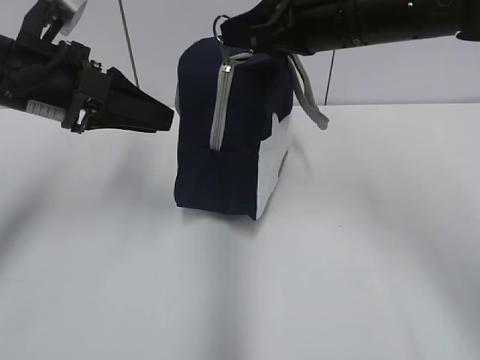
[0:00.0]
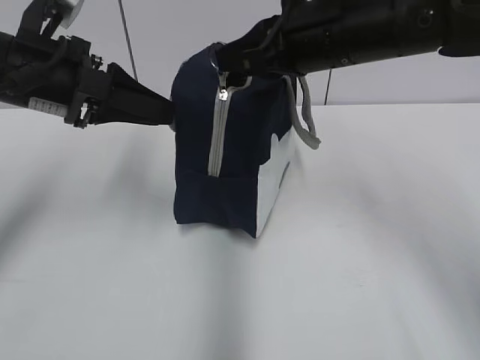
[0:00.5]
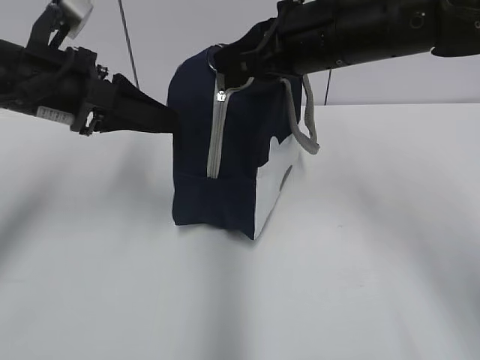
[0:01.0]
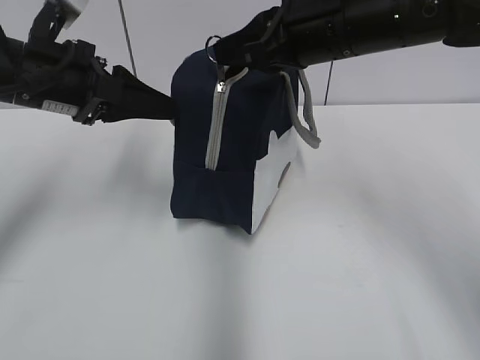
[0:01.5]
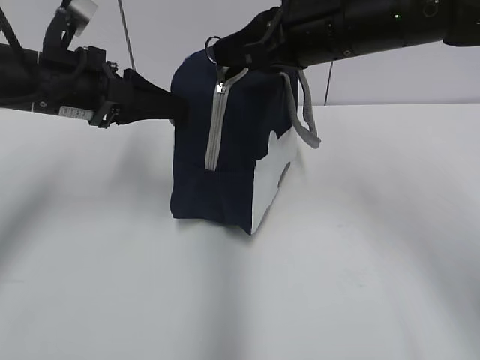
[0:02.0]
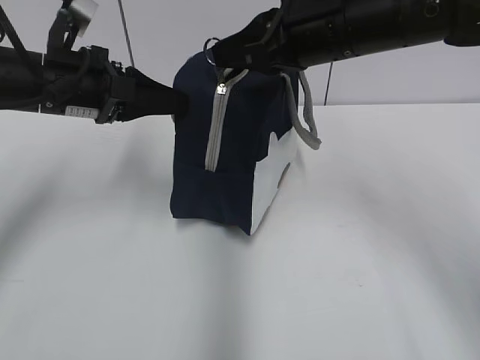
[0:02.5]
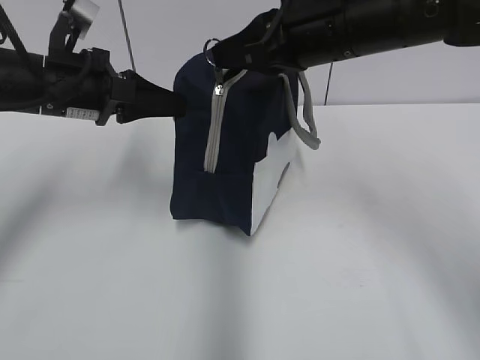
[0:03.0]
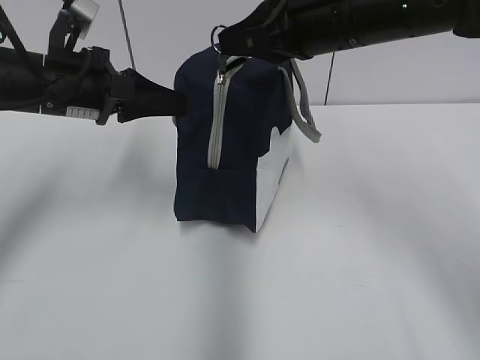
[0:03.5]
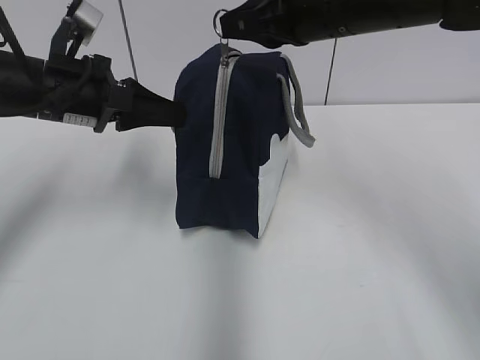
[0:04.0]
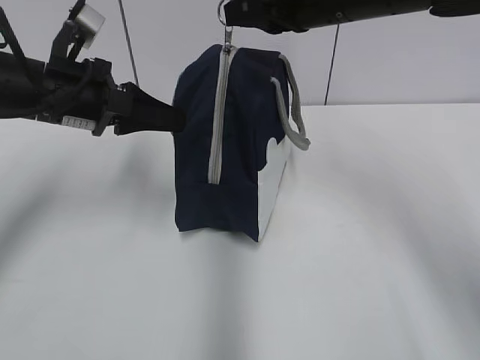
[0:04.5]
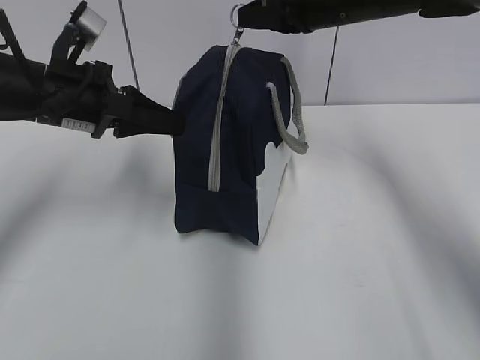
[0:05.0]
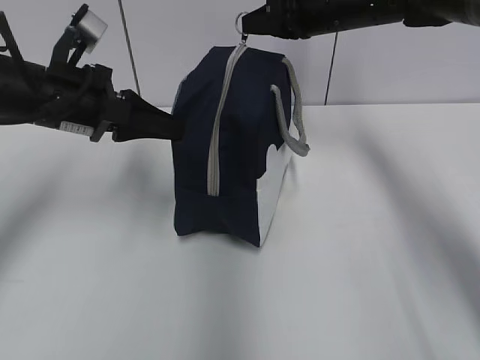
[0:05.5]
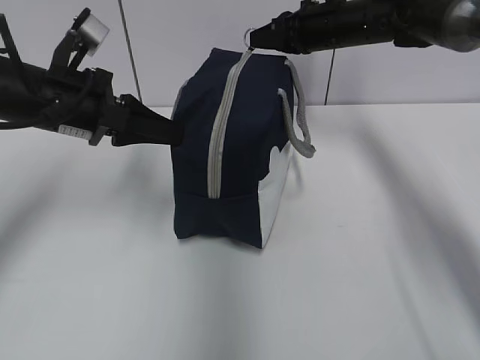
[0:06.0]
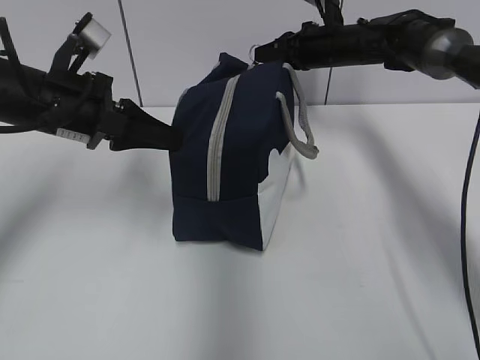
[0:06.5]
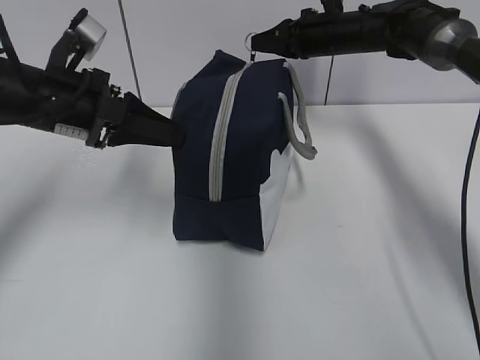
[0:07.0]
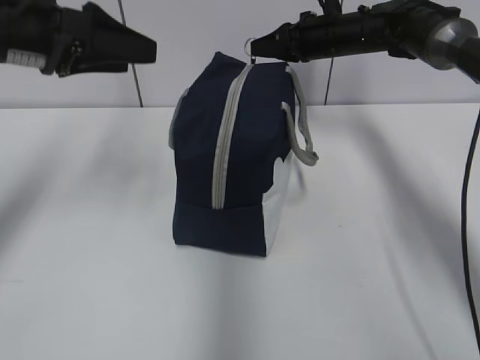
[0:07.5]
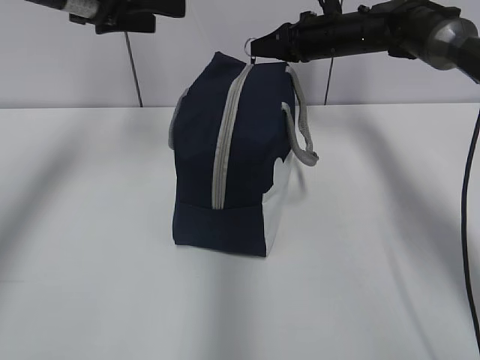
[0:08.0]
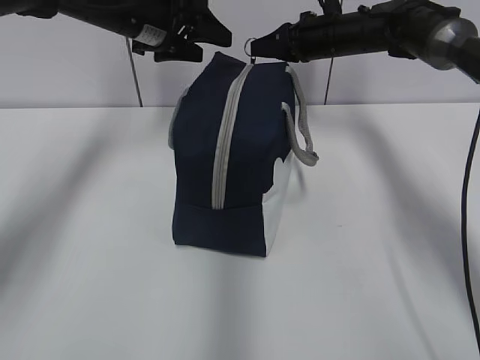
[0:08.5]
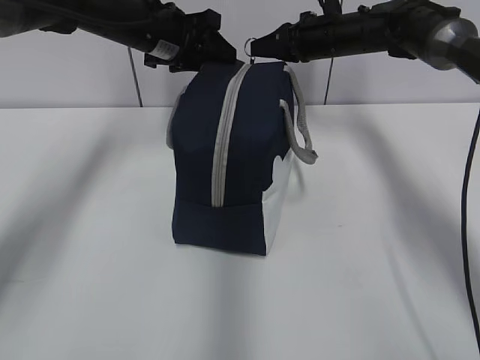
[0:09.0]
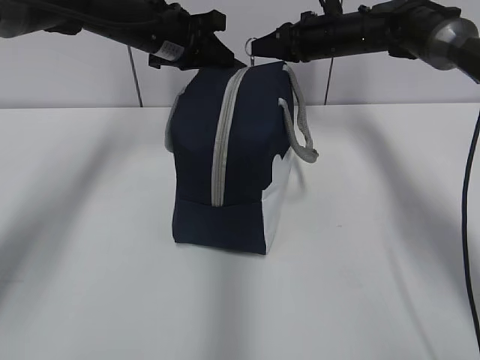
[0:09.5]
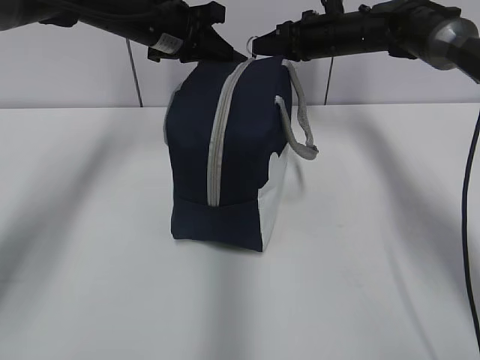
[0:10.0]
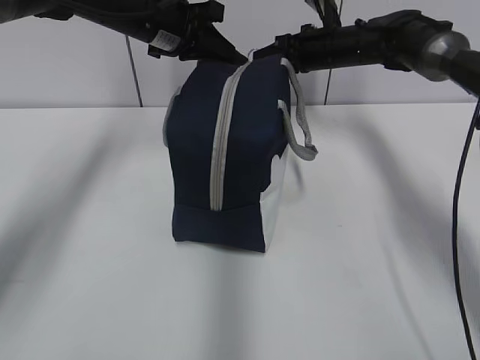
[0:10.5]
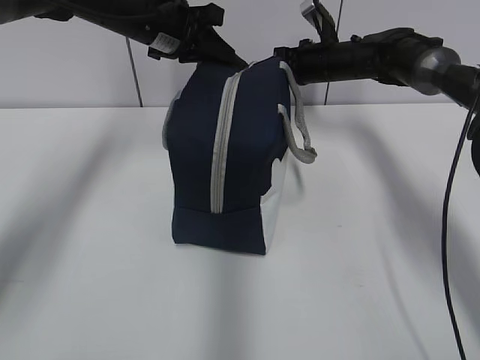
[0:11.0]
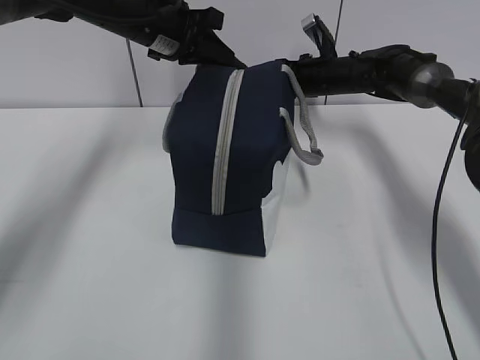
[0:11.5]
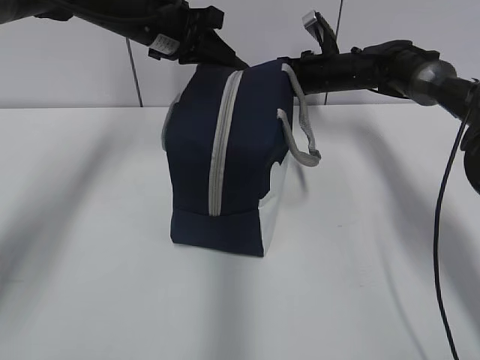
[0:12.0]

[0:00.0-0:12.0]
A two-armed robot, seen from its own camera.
0:00.0 to 0:02.0: There are only small adjustments of the grippers.
0:02.0 to 0:04.0: The left gripper closes its fingers.
0:04.0 to 0:06.0: The right gripper shifts roughly 20 cm forward and downward.
0:06.0 to 0:08.0: The left gripper goes about 10 cm upward and forward, and opens its fingers.
0:08.0 to 0:10.0: The left gripper moves forward, to the right and downward, some 10 cm, and closes.
0:10.0 to 0:12.0: The right gripper goes some 5 cm downward.

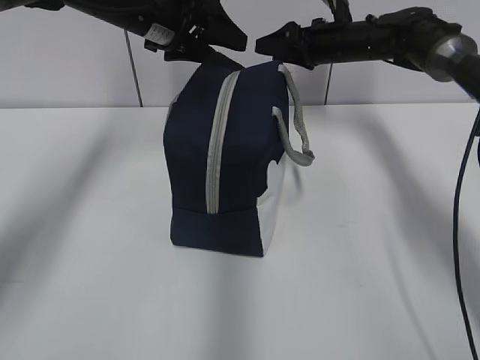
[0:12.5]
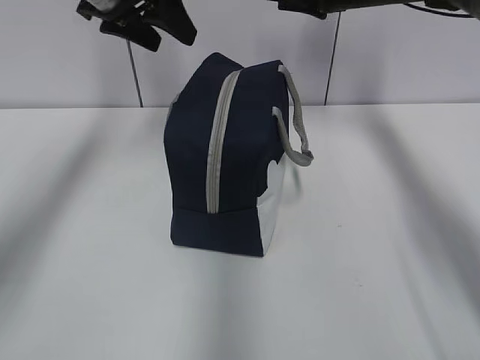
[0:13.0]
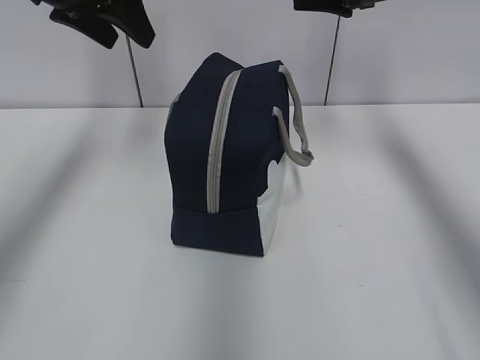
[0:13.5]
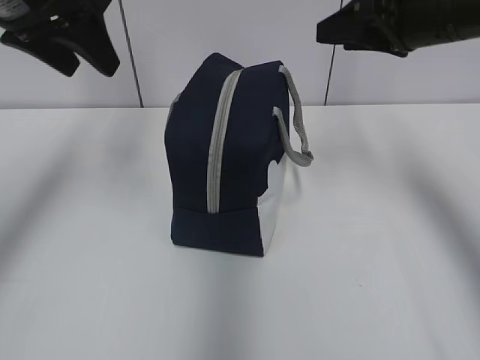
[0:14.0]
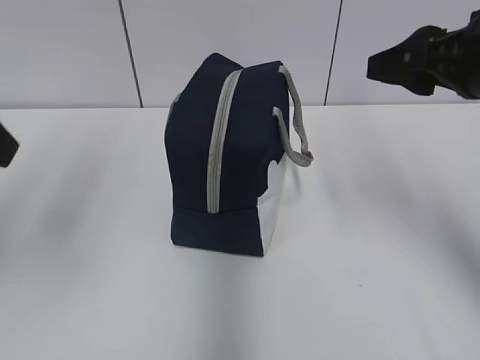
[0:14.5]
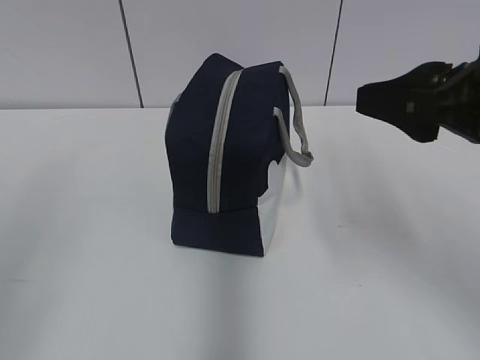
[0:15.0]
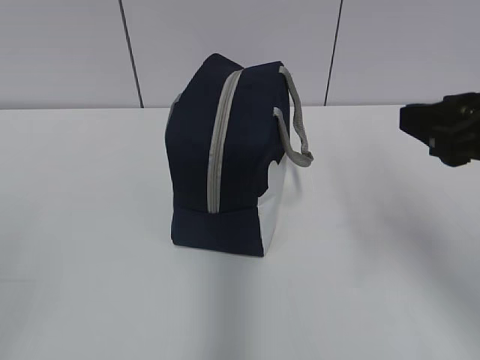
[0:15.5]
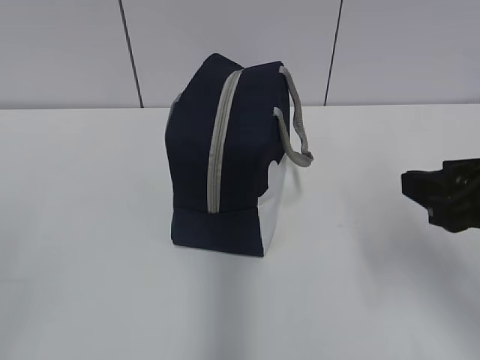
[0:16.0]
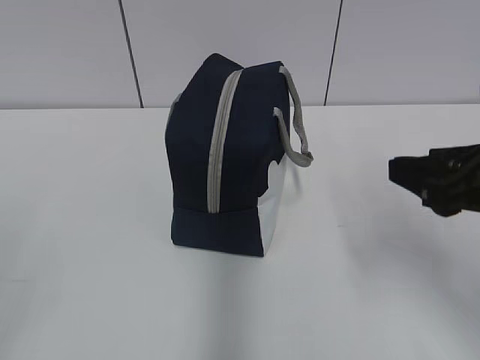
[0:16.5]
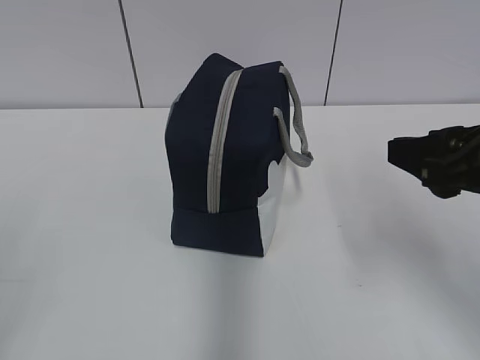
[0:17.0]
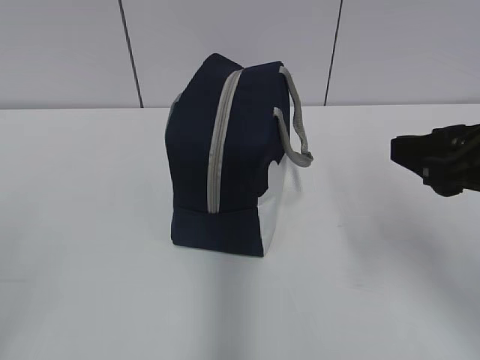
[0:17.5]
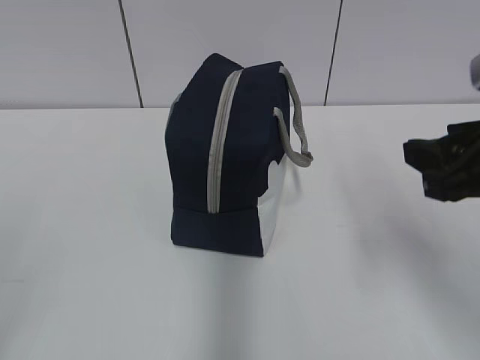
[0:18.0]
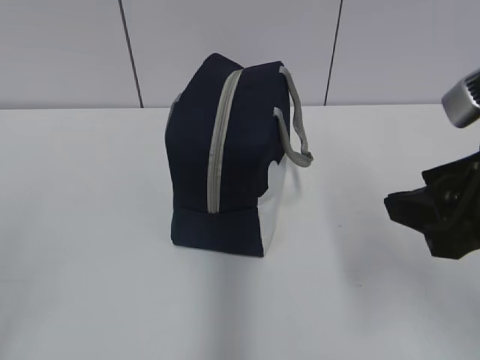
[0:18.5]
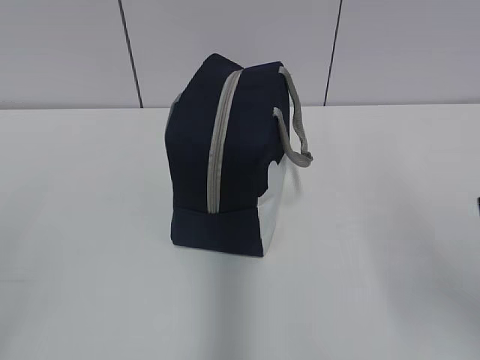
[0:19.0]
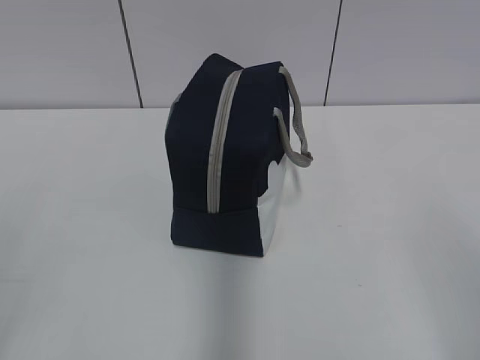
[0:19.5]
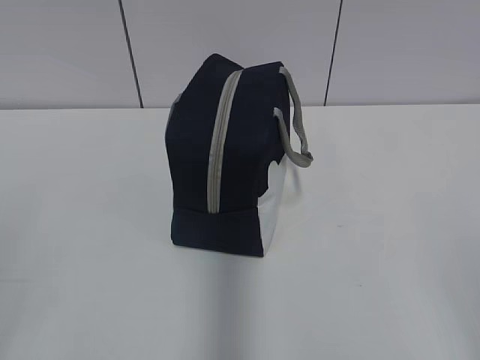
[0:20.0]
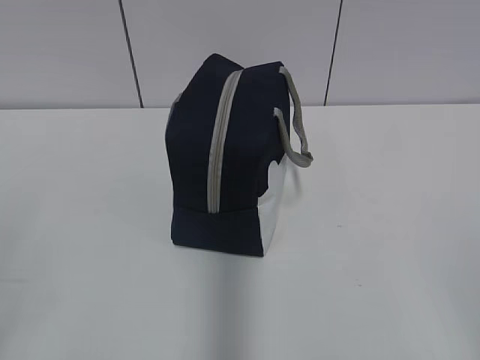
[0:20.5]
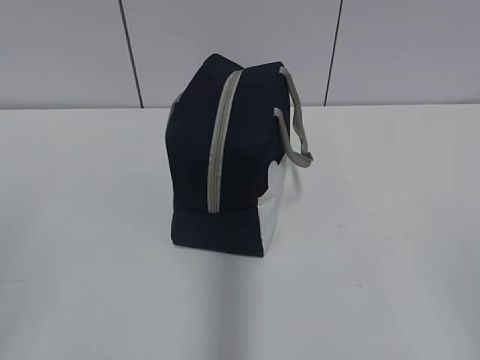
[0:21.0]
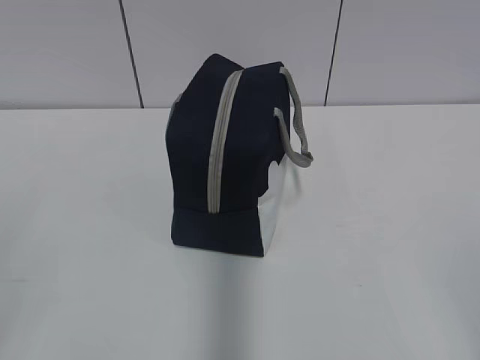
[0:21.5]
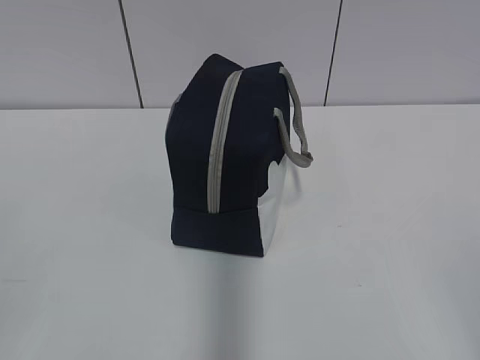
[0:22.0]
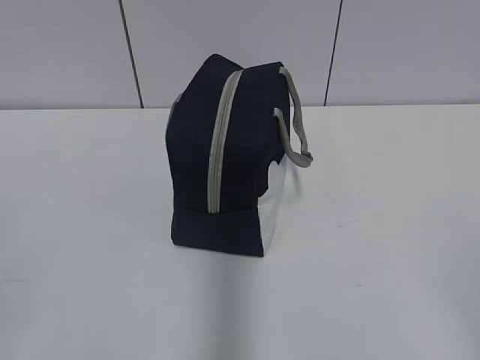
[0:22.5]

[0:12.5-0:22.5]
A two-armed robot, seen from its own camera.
0:12.5 to 0:14.5: The left gripper is displaced backward and to the left by some 30 cm, while the right gripper shifts roughly 30 cm backward.
0:14.5 to 0:16.5: The left gripper moves backward and downward, about 20 cm; the right gripper goes approximately 10 cm backward and downward.
0:16.5 to 0:18.5: There are only small adjustments of the grippers.
0:18.5 to 0:20.5: The right gripper is displaced backward and to the right by approximately 20 cm.

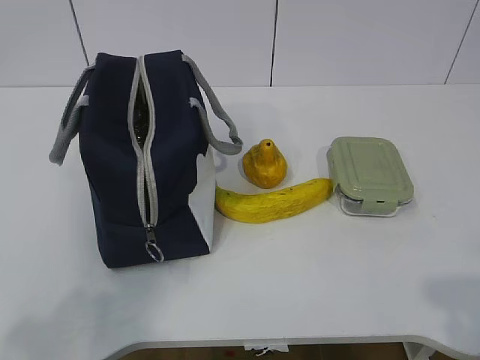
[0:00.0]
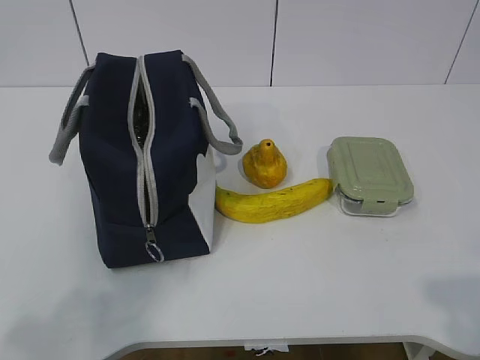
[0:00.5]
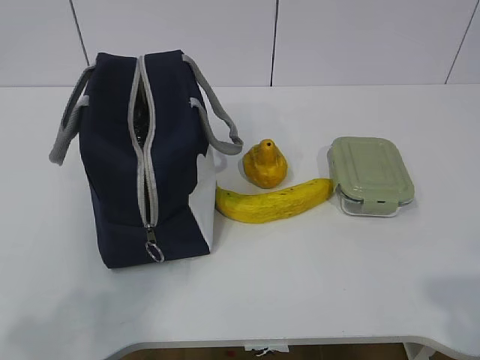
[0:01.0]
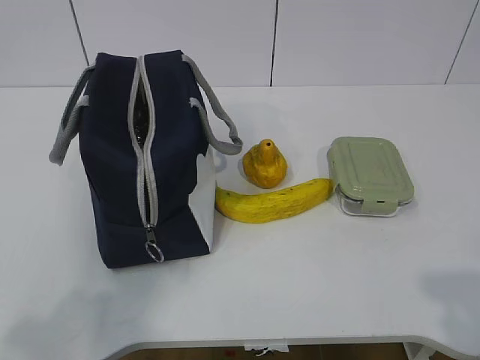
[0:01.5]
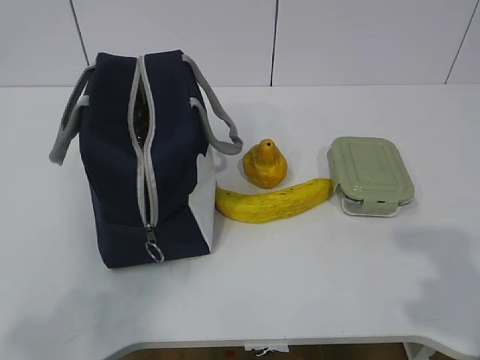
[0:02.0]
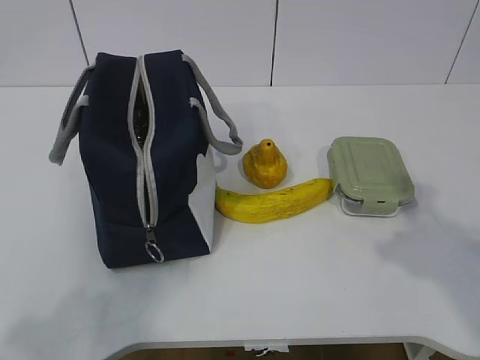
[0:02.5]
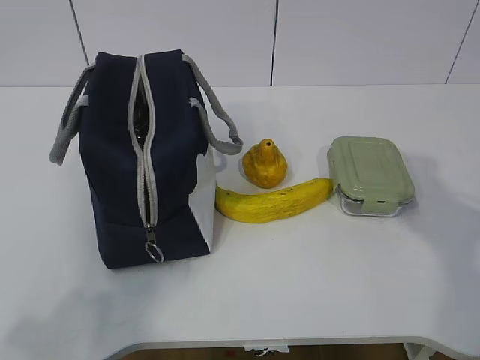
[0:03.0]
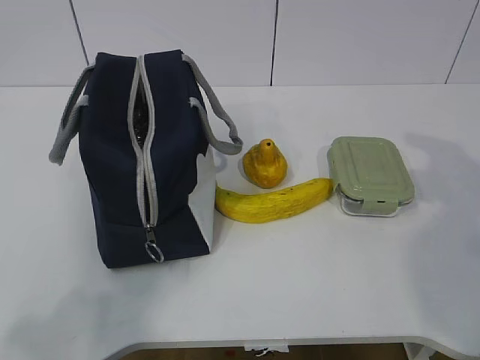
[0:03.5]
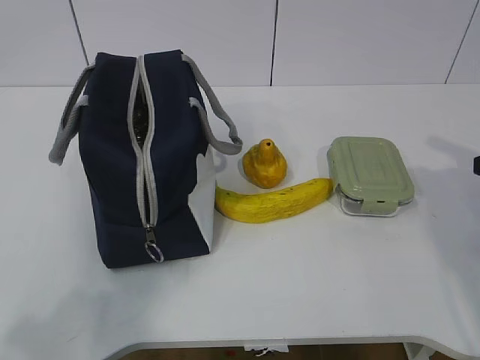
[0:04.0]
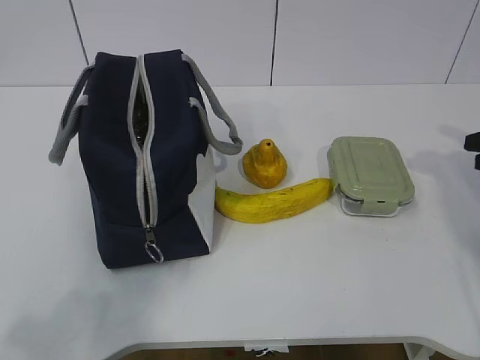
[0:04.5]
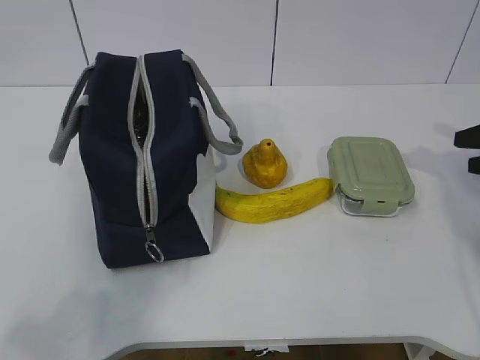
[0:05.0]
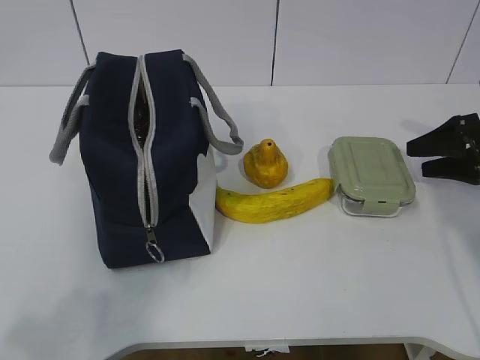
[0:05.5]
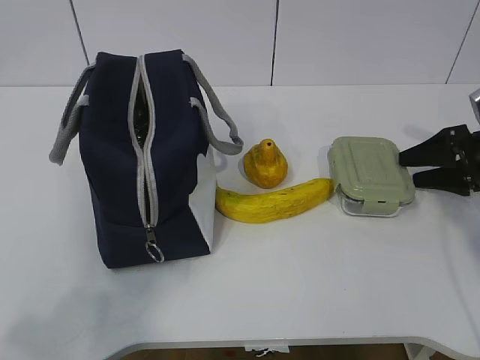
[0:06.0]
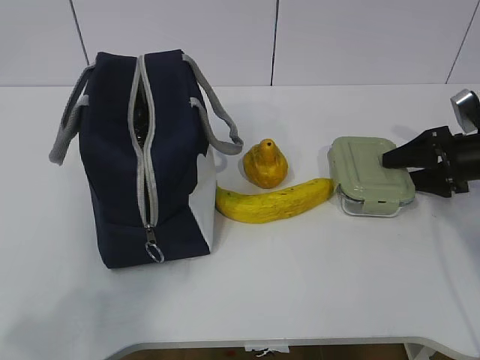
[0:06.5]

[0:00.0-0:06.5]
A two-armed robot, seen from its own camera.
0:02.0 to 0:04.5: The right gripper goes approximately 35 cm forward and to the right.
0:04.5 to 0:06.5: The right gripper shifts some 10 cm forward, downward and to the left.
